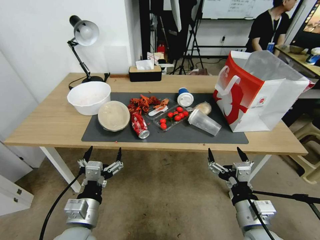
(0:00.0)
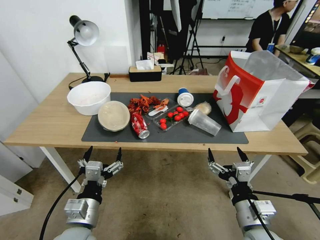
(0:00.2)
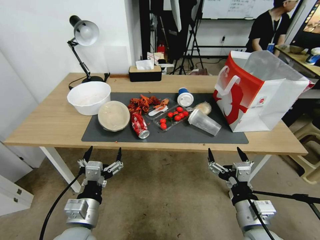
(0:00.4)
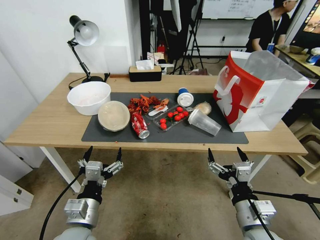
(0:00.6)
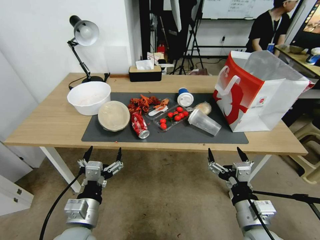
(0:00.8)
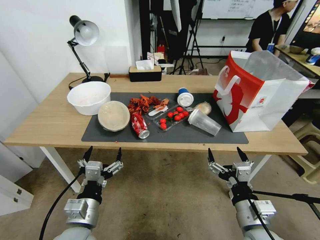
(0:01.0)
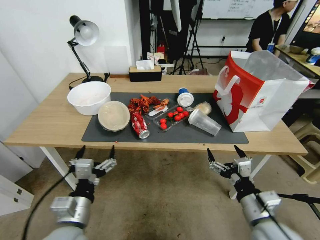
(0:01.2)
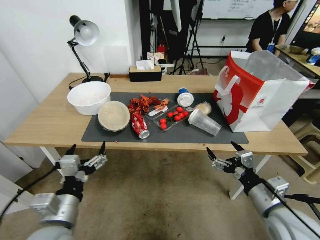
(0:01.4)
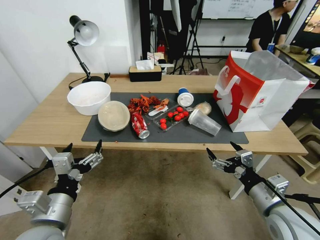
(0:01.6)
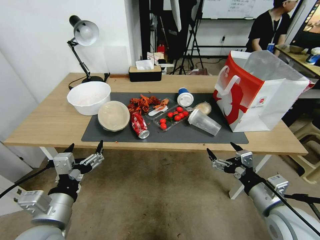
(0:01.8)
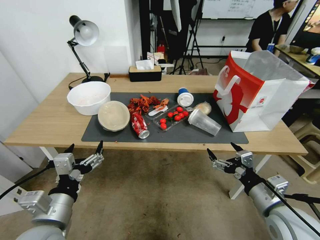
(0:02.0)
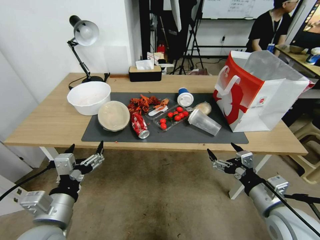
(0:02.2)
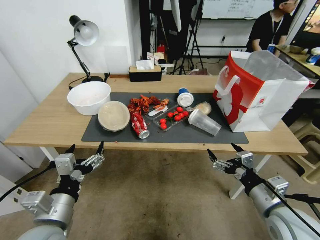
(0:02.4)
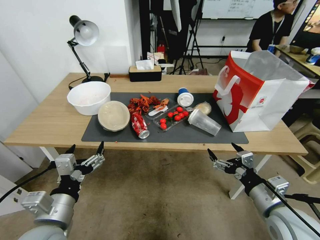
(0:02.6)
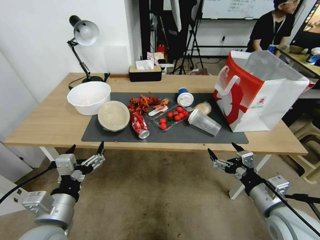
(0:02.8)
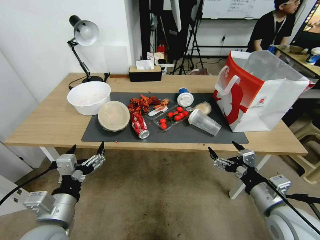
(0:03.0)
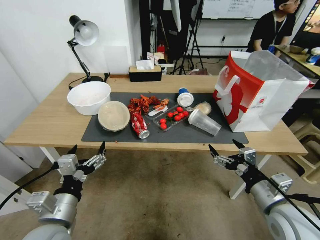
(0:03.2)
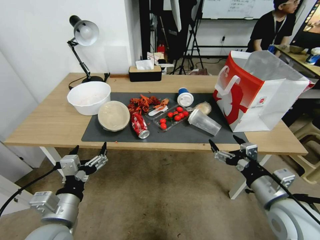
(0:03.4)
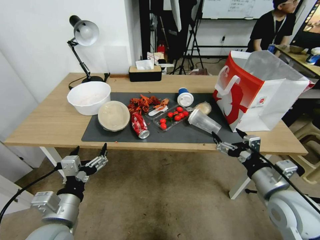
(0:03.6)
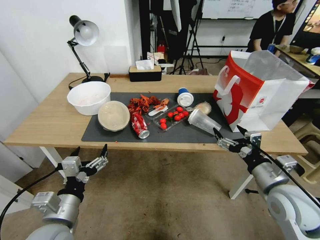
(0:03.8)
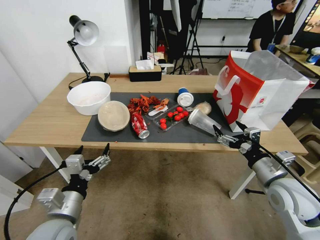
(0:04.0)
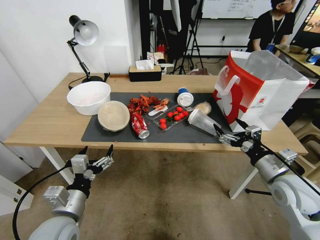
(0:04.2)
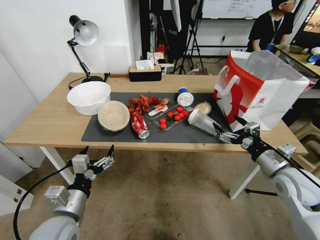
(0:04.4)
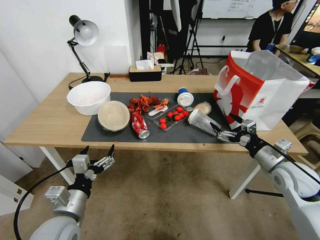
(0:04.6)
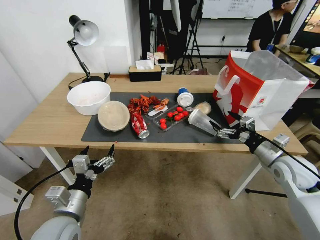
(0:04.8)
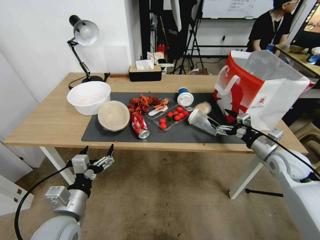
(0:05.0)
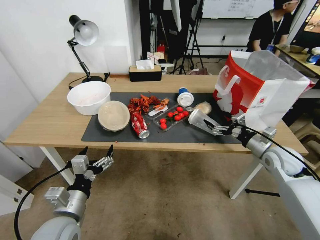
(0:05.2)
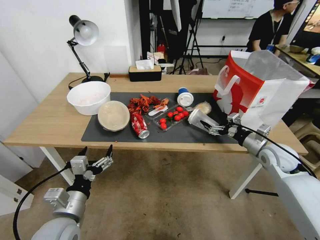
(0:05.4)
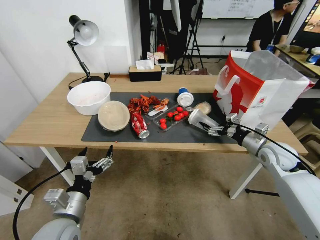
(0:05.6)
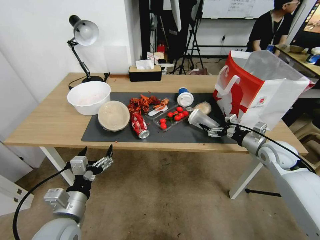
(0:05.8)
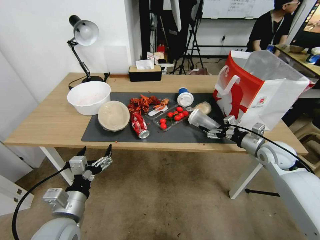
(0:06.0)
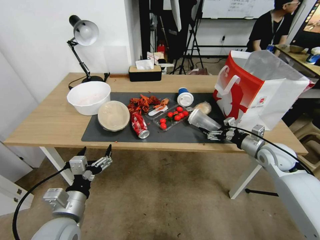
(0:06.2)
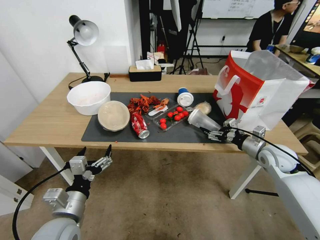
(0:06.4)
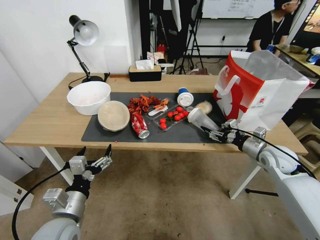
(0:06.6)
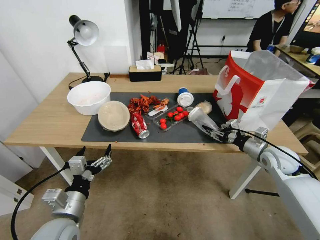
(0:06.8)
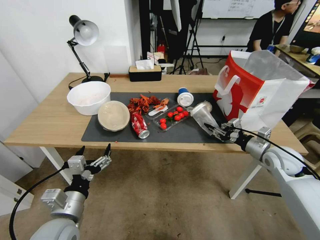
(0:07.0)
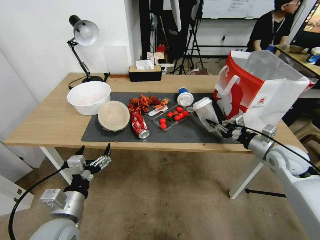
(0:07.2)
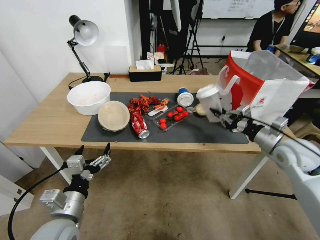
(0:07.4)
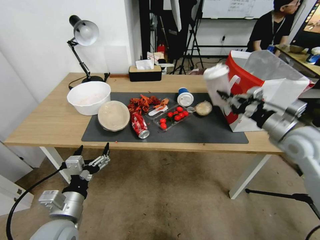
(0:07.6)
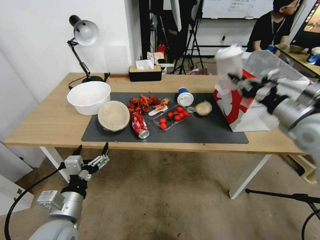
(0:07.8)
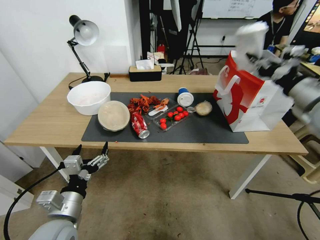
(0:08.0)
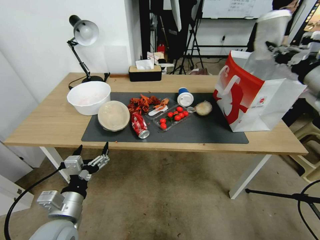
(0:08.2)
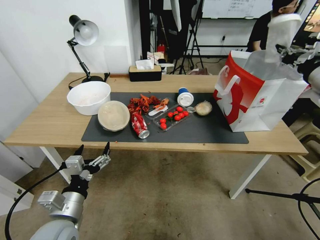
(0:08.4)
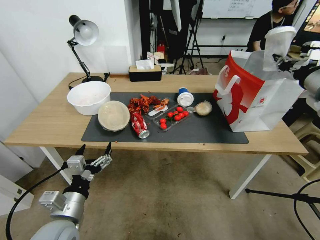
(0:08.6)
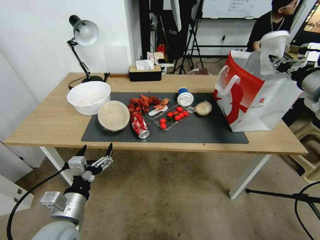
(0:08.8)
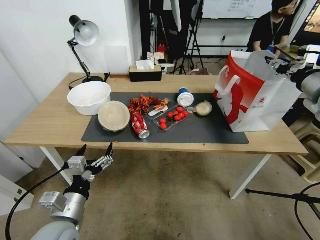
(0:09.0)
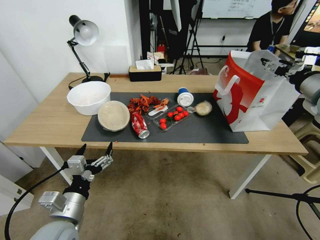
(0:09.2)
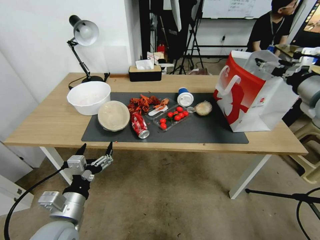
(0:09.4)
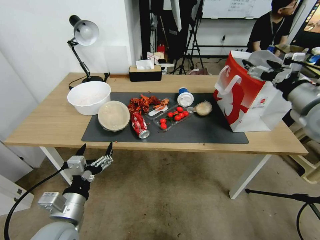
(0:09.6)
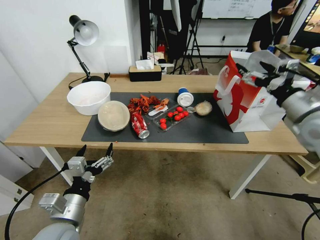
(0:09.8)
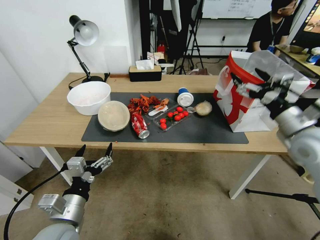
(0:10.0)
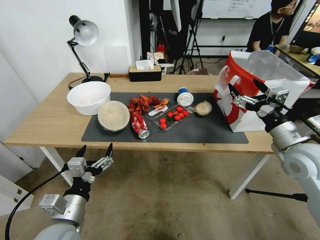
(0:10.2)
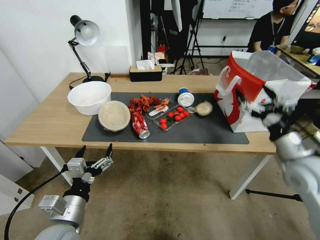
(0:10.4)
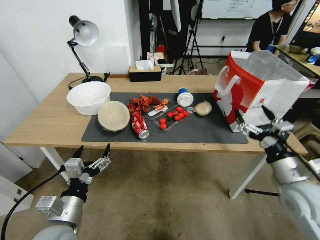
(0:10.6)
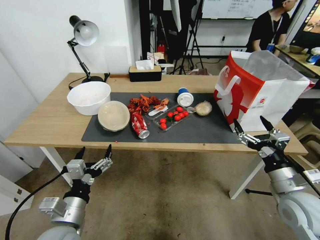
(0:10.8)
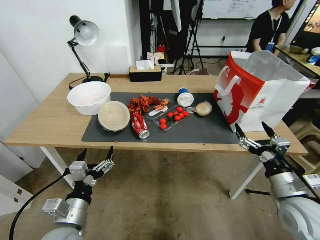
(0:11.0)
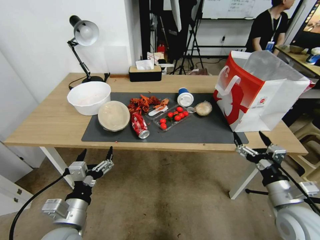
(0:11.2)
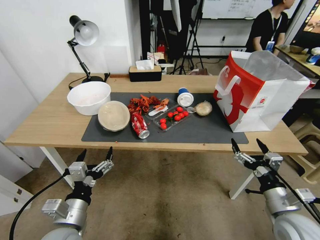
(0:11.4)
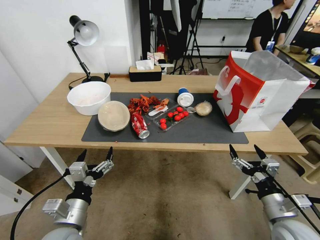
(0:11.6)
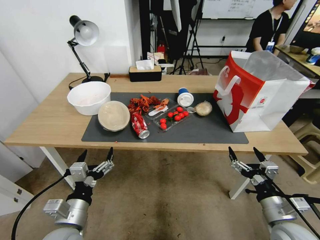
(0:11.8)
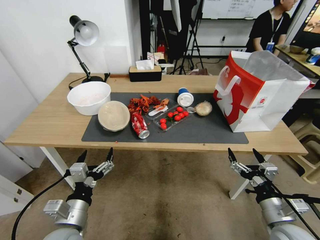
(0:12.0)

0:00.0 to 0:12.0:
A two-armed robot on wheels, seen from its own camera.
0:01.6 to 0:03.0: The grippers move only a little.
0:03.0 to 0:04.4: The right gripper is displaced forward and to the right by some 10 cm.
0:04.4 to 0:06.0: The right gripper is displaced forward by about 10 cm.
0:06.0 to 0:07.6: The right gripper heads upward, covering approximately 5 cm, and closes its fingers.
0:07.6 to 0:09.0: The right gripper shifts approximately 20 cm upward, and opens its fingers.
0:09.0 to 0:10.4: The right gripper goes roughly 15 cm downward and backward, and opens up.
0:10.4 to 0:12.0: The right gripper shifts some 25 cm downward and backward.

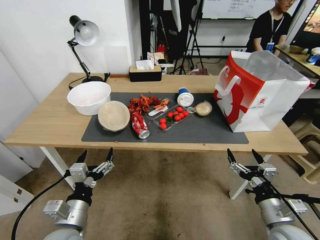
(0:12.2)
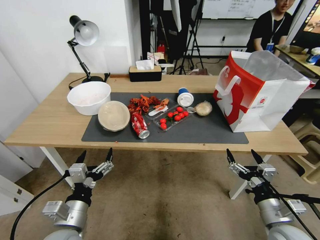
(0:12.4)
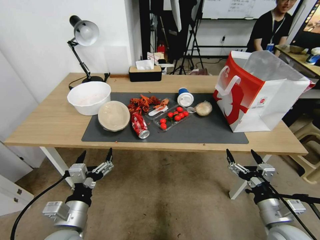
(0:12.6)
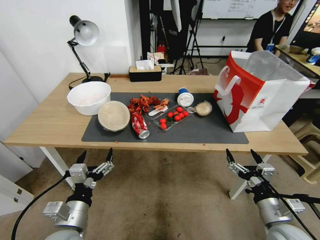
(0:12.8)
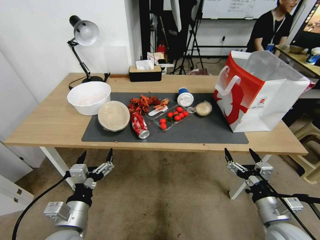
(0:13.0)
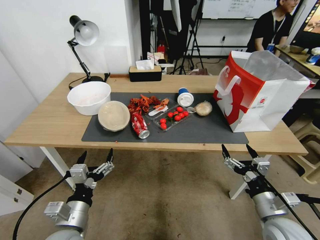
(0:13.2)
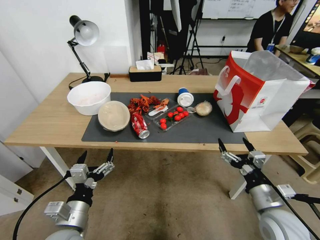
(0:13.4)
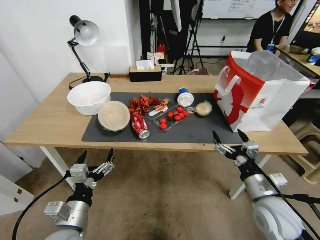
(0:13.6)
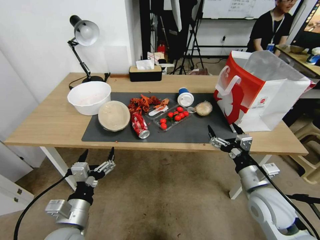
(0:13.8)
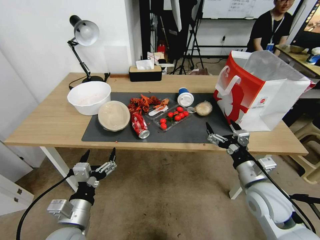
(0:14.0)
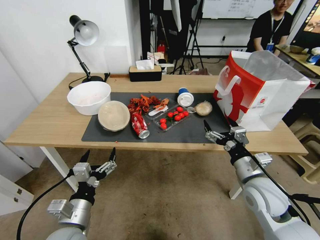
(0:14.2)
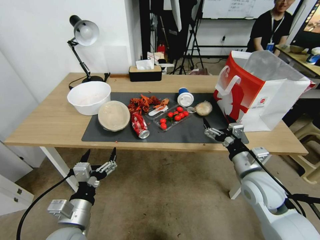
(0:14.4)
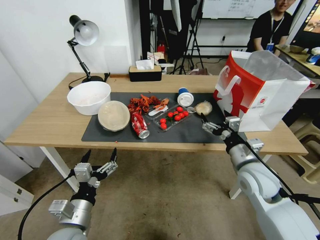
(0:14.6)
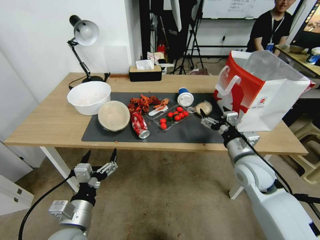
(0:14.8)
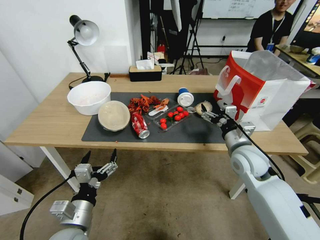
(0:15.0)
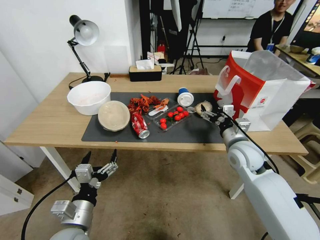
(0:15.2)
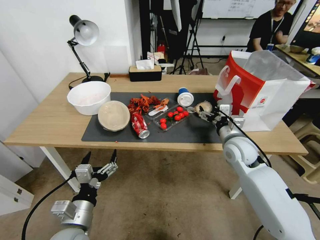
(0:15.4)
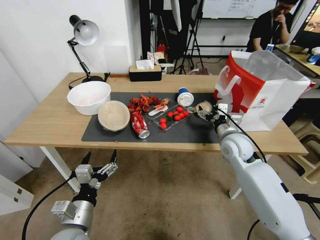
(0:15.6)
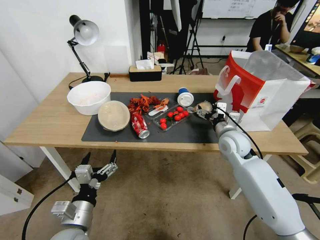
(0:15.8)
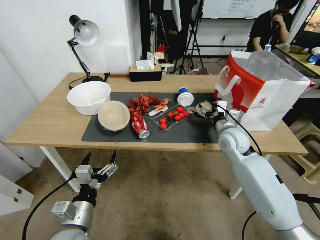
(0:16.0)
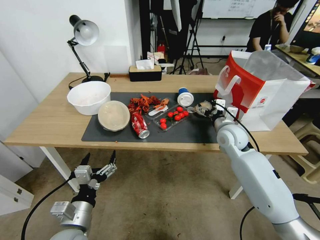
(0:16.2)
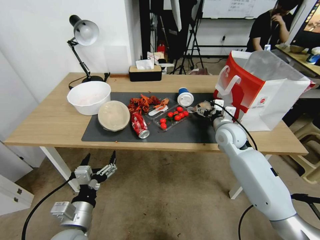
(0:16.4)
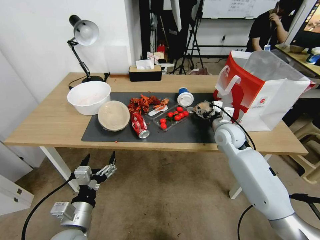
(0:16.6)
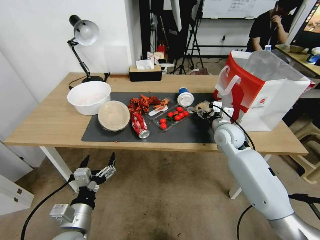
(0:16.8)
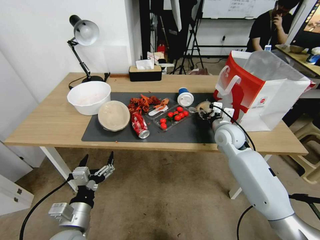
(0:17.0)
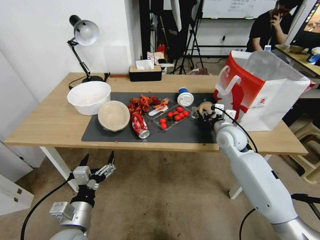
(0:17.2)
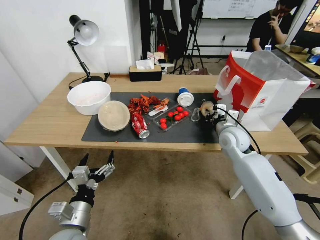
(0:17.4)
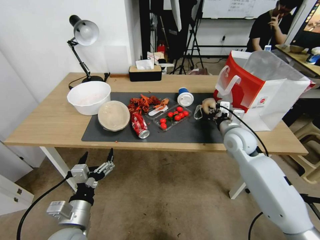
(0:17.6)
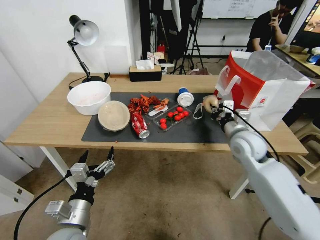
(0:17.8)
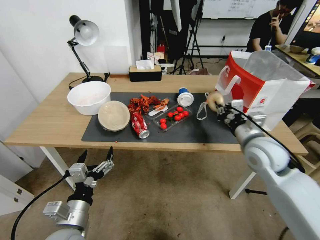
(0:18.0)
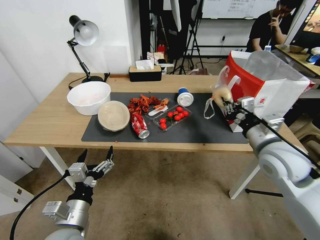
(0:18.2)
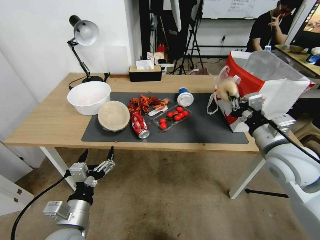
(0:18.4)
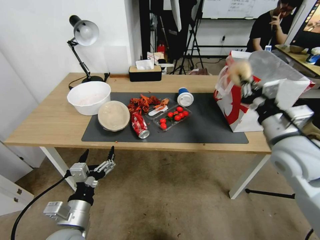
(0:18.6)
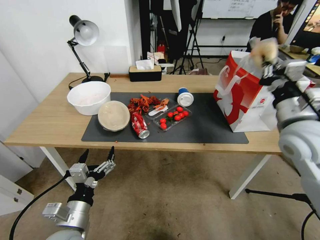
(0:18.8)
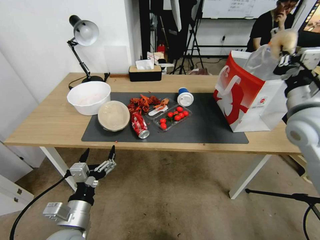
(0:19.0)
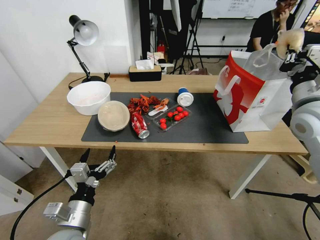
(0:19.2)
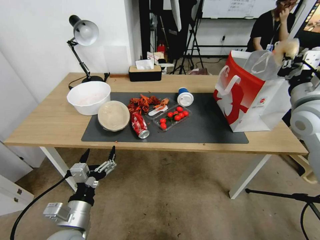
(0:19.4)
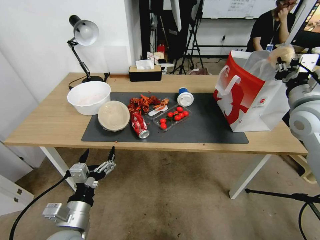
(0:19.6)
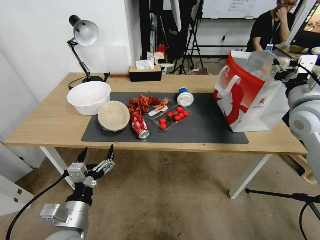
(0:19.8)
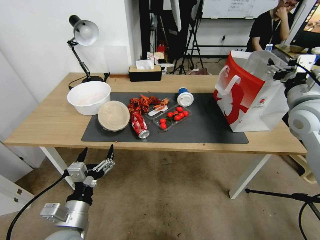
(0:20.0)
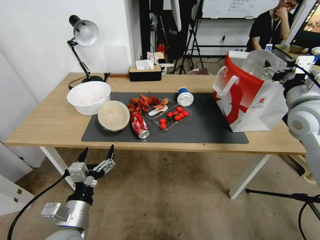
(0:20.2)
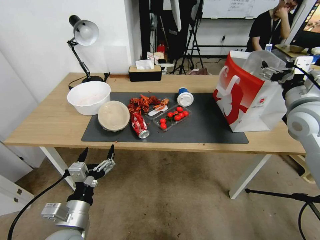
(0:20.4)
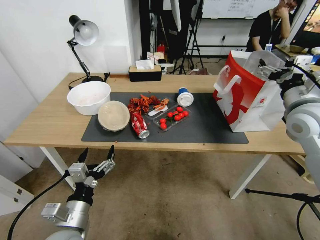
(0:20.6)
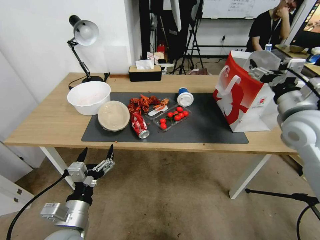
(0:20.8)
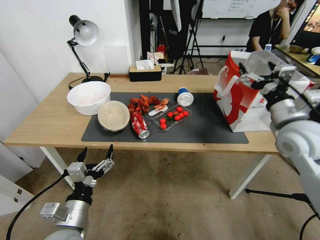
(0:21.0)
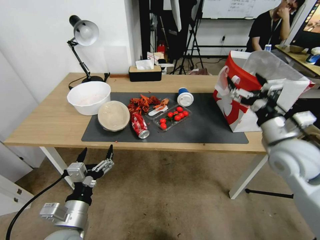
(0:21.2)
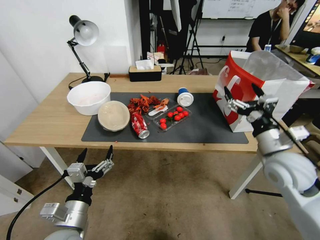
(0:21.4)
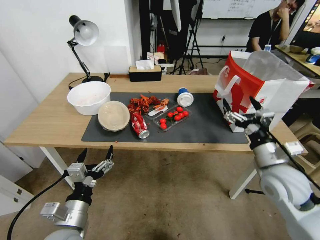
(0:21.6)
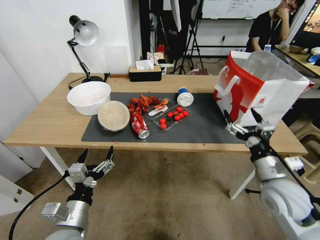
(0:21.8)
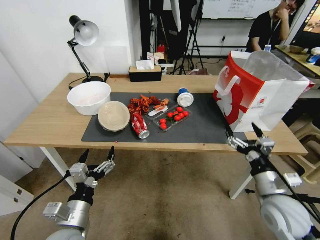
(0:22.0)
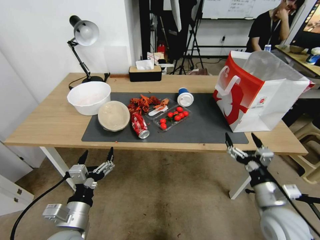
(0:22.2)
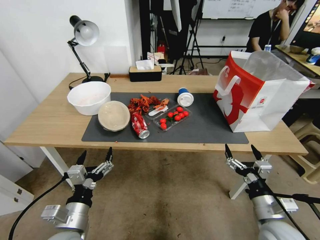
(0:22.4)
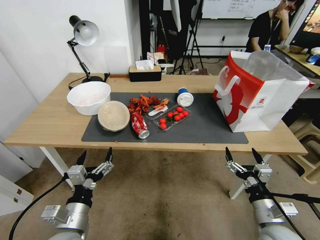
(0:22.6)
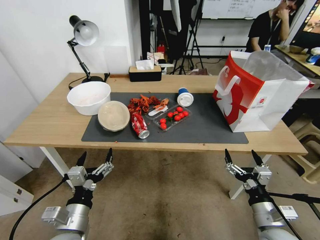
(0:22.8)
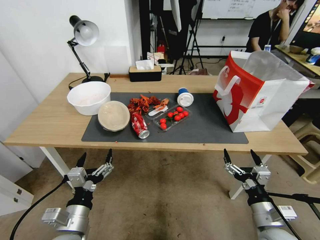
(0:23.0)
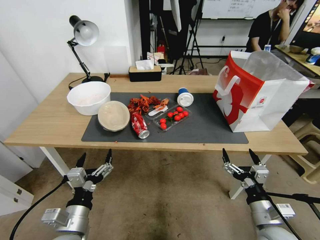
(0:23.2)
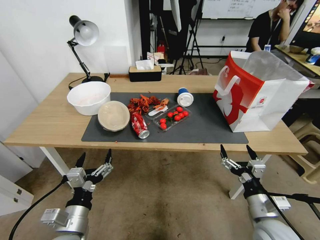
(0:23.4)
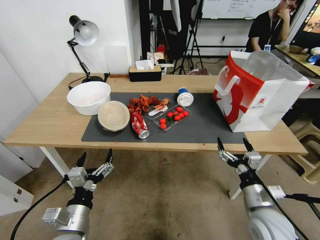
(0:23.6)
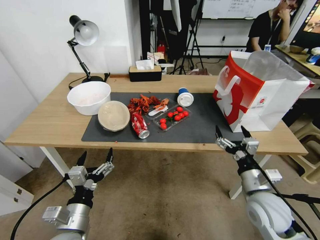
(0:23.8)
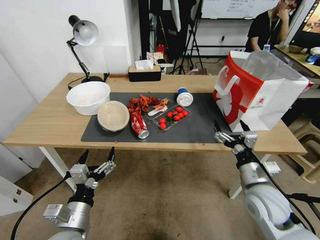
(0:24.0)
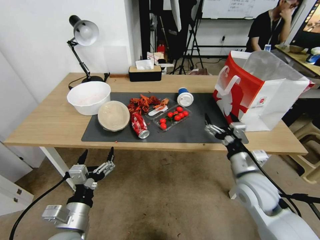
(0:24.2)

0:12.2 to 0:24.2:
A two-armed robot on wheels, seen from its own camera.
0:12.2 to 0:13.8: The right gripper heads forward, covering roughly 5 cm.
0:13.8 to 0:15.2: The right gripper shifts some 15 cm forward.
0:15.2 to 0:16.6: The right gripper heads forward, covering some 10 cm.
0:16.6 to 0:18.2: The right gripper goes some 15 cm backward and upward, and closes up.
0:18.2 to 0:19.8: The right gripper is displaced upward, to the right and forward by approximately 15 cm, and opens up.
0:19.8 to 0:21.2: The right gripper goes approximately 10 cm downward and backward, and opens.
0:21.2 to 0:22.6: The right gripper moves downward and backward, about 25 cm.
0:22.6 to 0:24.2: The right gripper heads forward and upward, covering about 15 cm.
